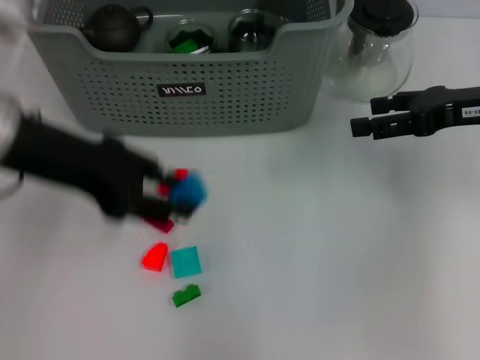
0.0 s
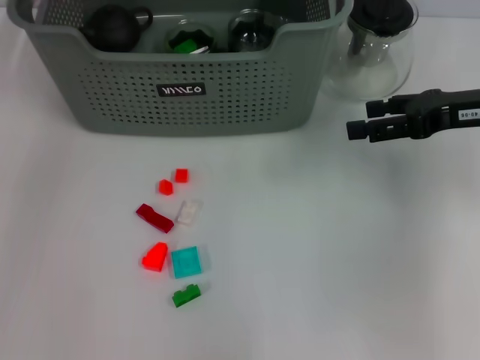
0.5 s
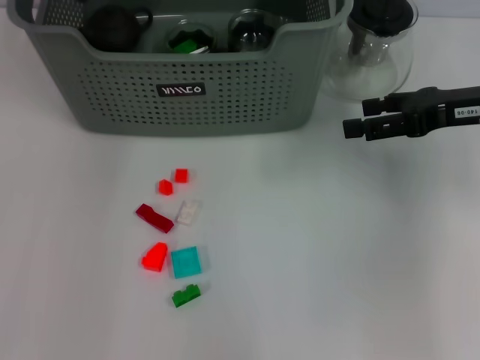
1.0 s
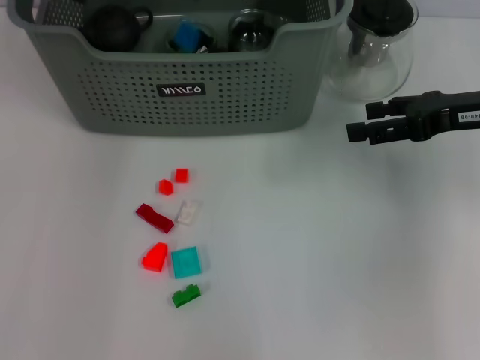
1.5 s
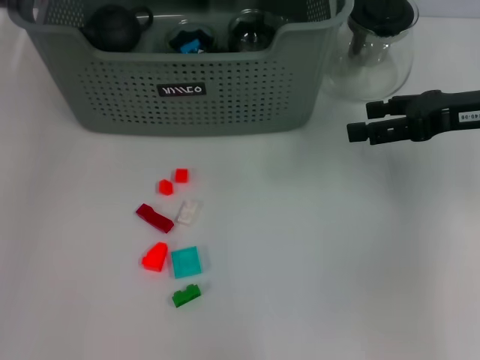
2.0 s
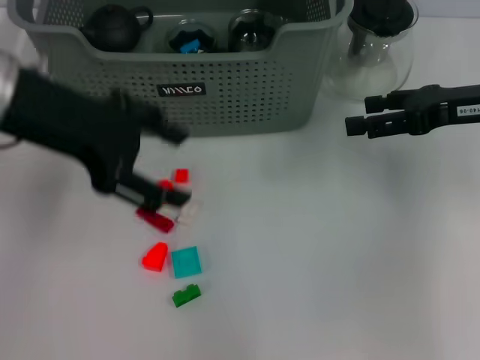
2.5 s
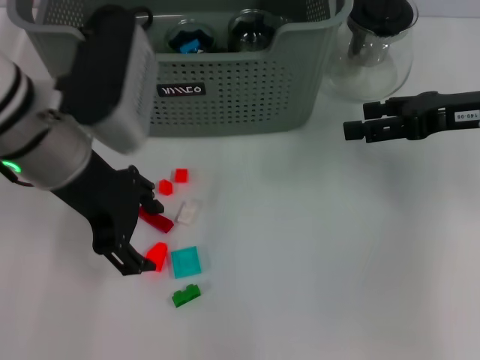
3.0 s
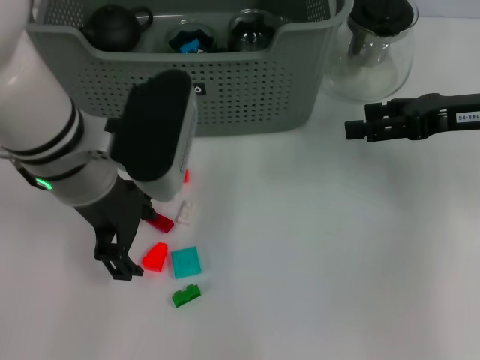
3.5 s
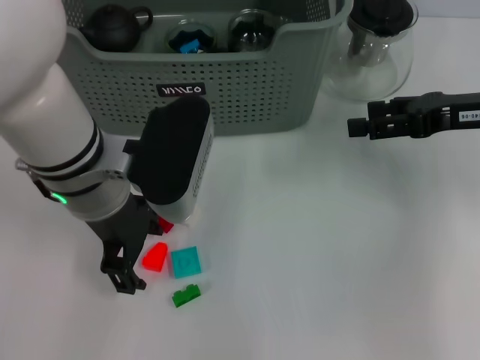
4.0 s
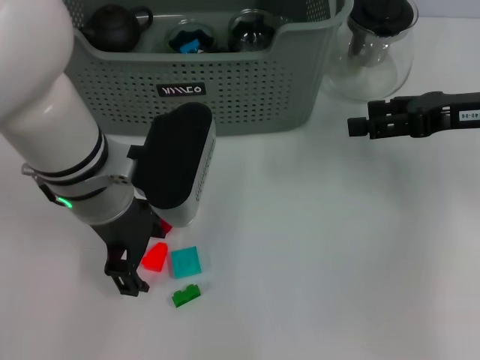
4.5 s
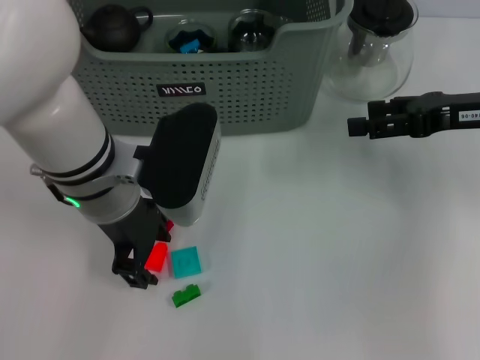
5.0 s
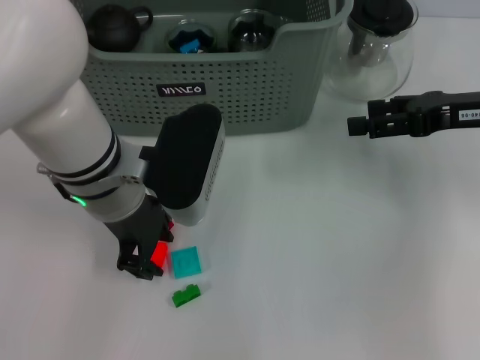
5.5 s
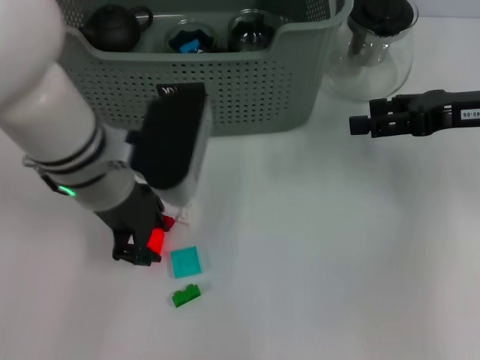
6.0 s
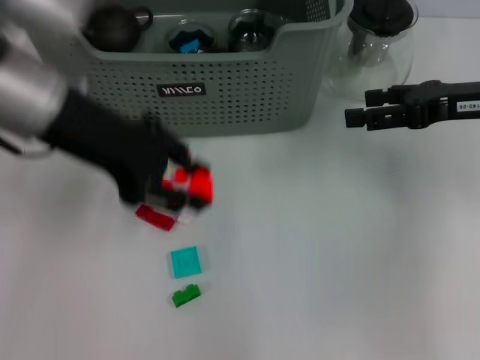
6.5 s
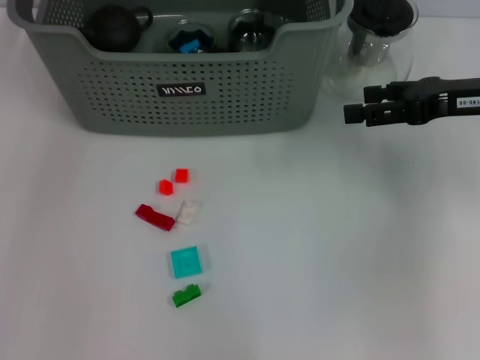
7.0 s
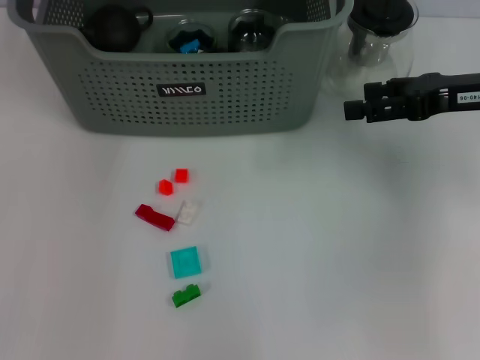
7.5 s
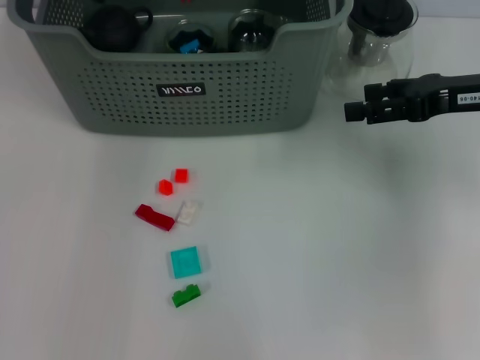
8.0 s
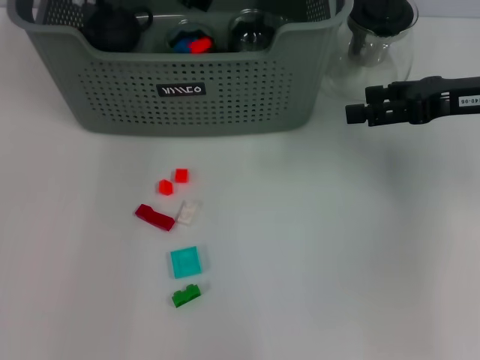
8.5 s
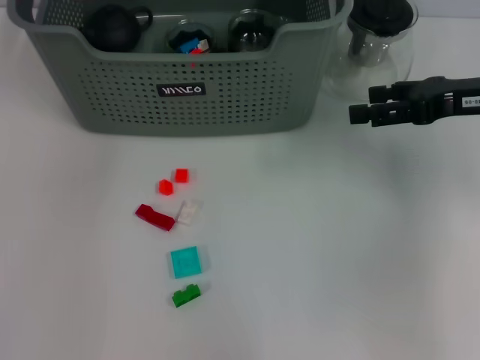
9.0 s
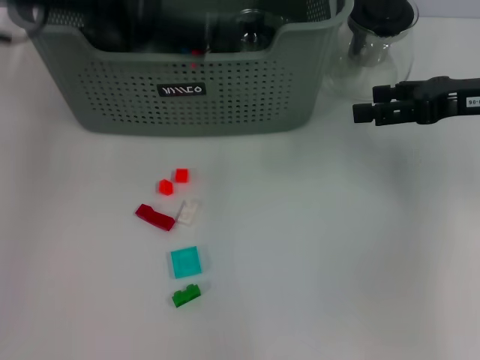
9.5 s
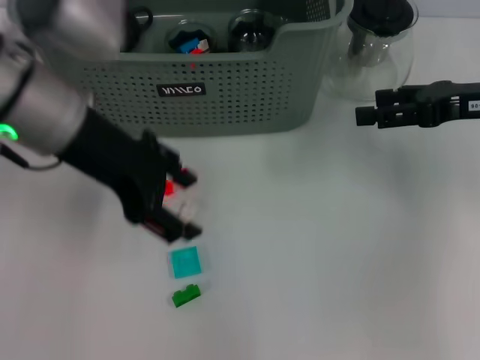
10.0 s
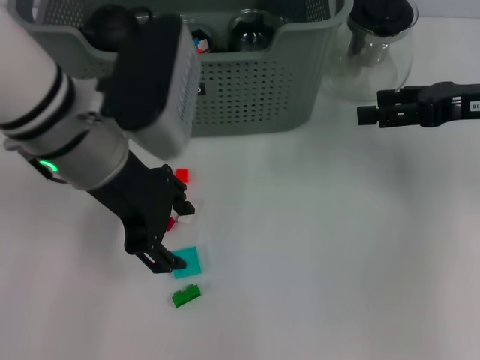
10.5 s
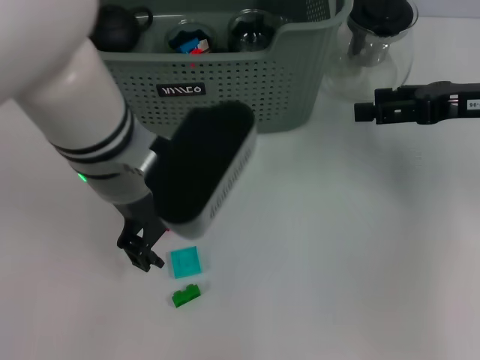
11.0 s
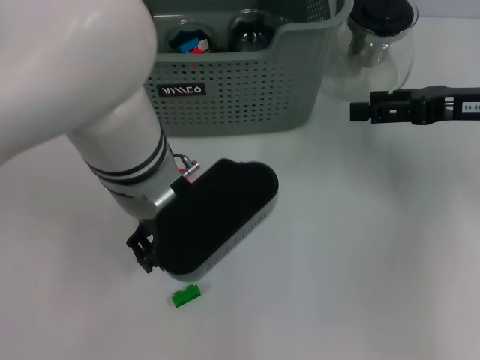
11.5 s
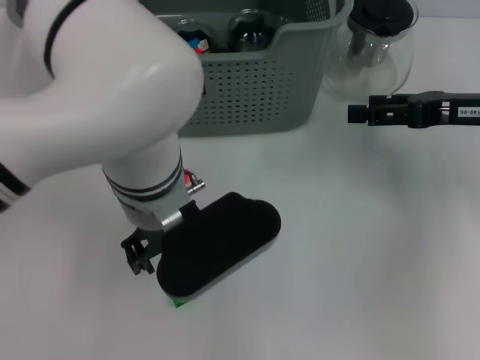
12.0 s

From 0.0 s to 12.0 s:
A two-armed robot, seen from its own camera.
Task of the whole recording: pick up the teacup on the table and place it into the storage bin, pick up the block on the table and place it into the storage bin.
Step, from 0.0 s to 1.5 s: Place the dark blue block in the storage box with left gripper.
Step, from 2.0 s to 5.5 s: Grasp the orange block with left gripper.
Step, from 6.0 s to 8.5 s: Place the orange block in the storage box with left gripper.
From 0.0 s to 2.0 s: The left gripper shifts approximately 10 cm forward, and opens its fingers.
From 2.0 s to 4.0 s: The left gripper moves downward, to the right and backward, roughly 15 cm.
From 4.0 s to 6.0 s: The left gripper closes.
From 6.0 s to 8.0 s: The left gripper goes approximately 15 cm forward.
From 8.0 s to 10.0 s: The left gripper heads backward, covering roughly 15 cm, and opens.
From 10.0 s to 12.0 s: The left gripper shifts roughly 15 cm to the right and downward.

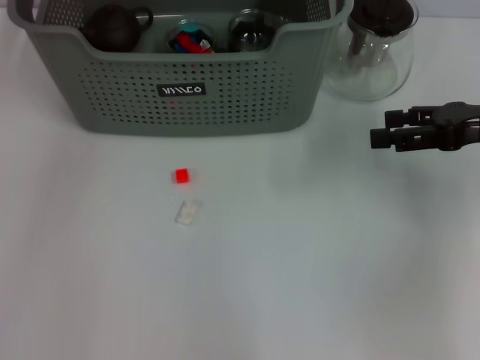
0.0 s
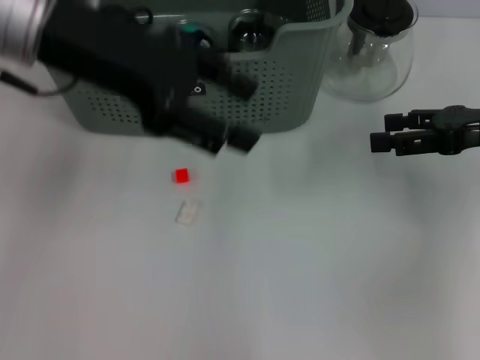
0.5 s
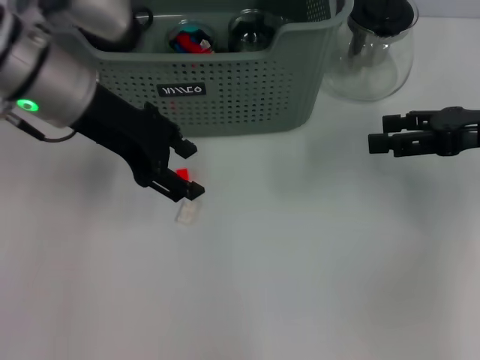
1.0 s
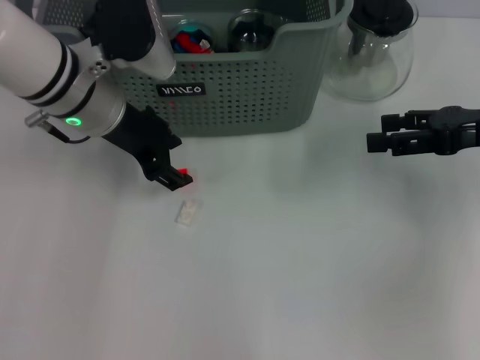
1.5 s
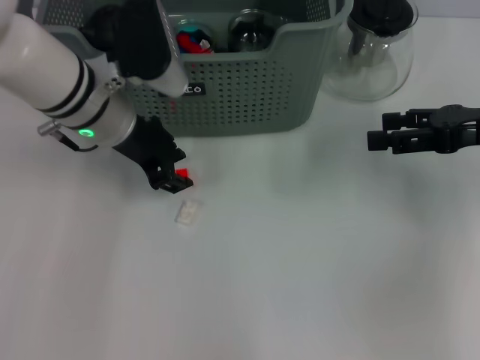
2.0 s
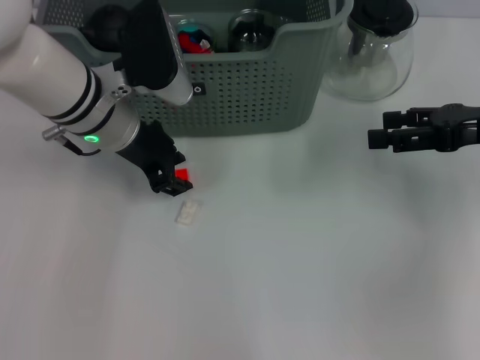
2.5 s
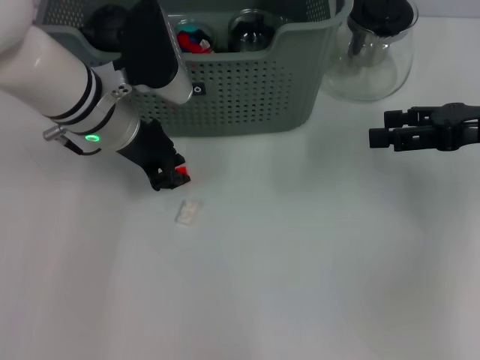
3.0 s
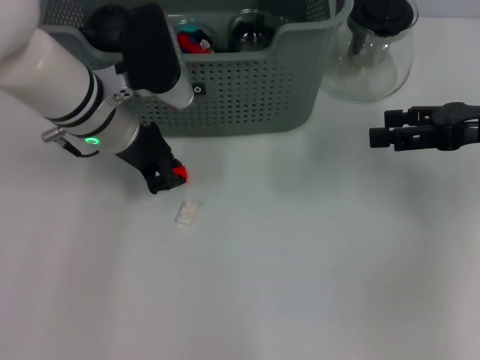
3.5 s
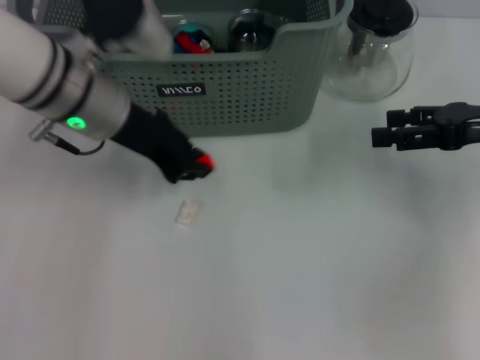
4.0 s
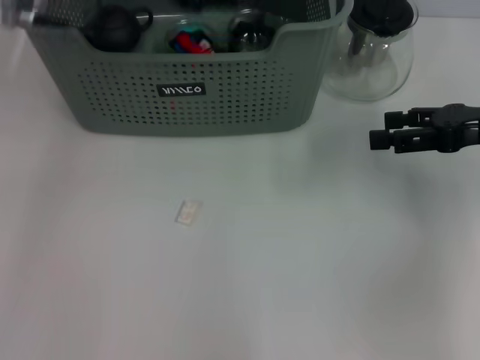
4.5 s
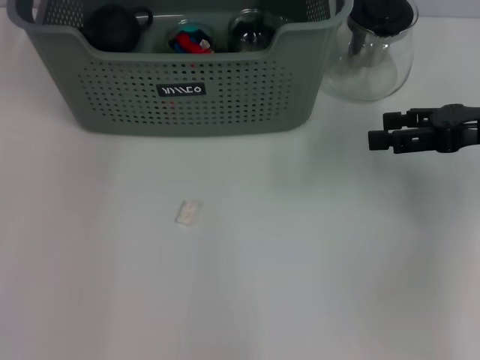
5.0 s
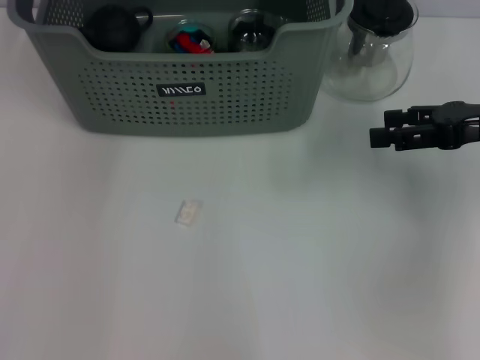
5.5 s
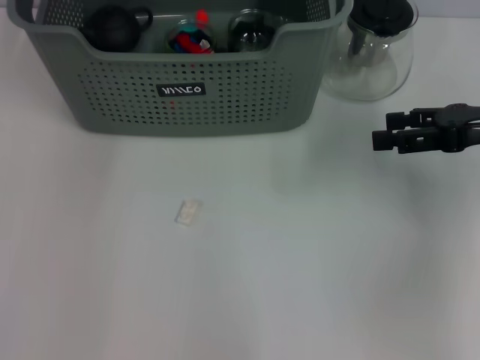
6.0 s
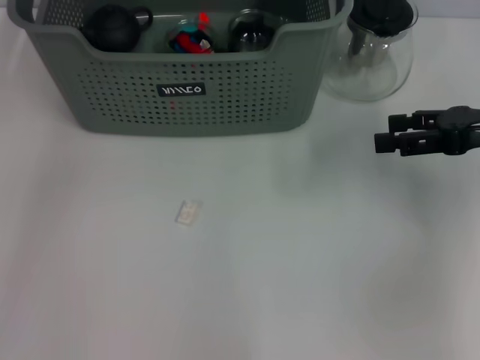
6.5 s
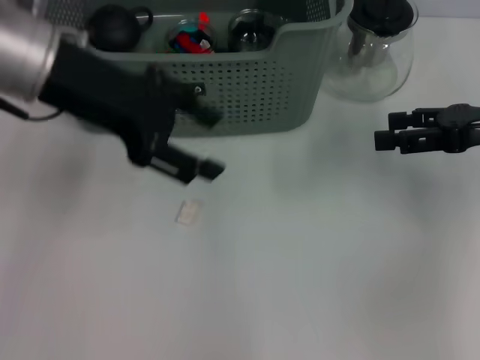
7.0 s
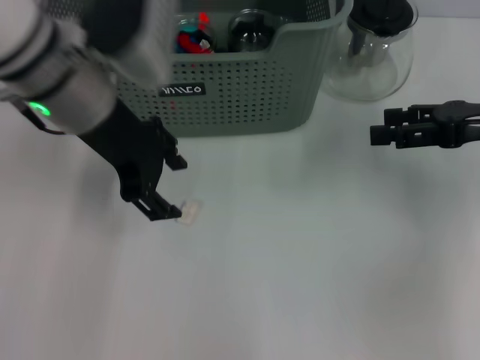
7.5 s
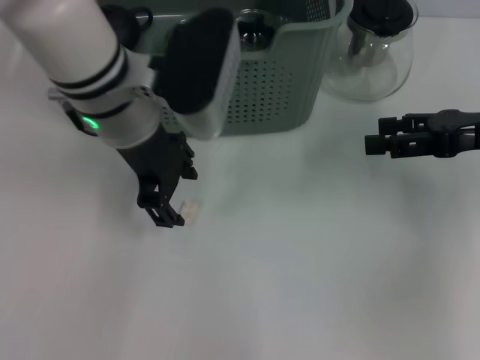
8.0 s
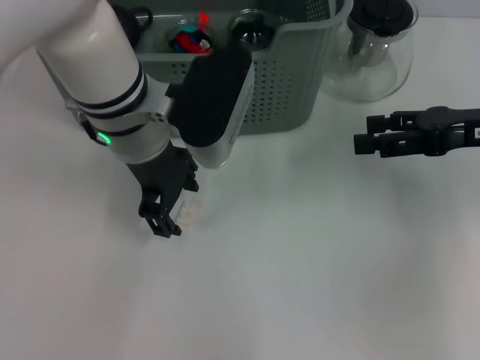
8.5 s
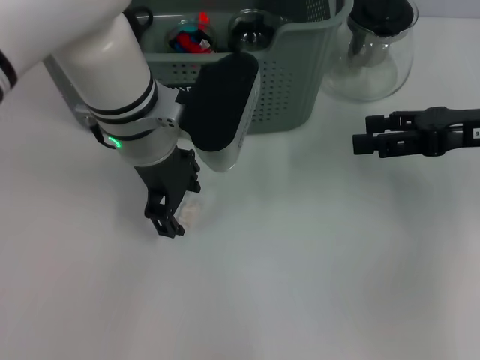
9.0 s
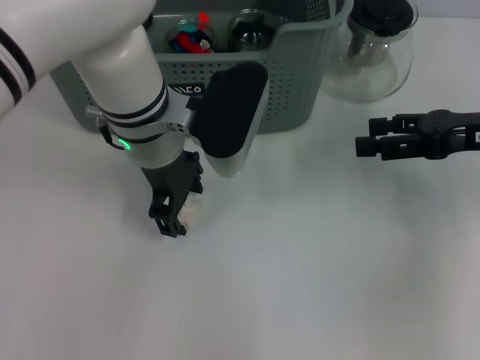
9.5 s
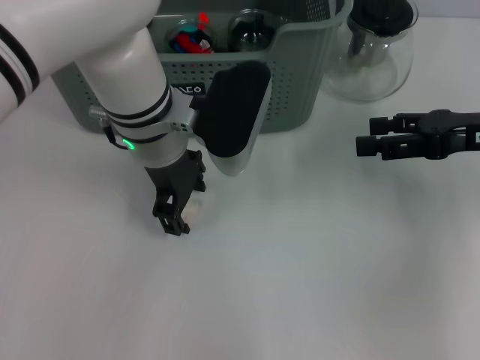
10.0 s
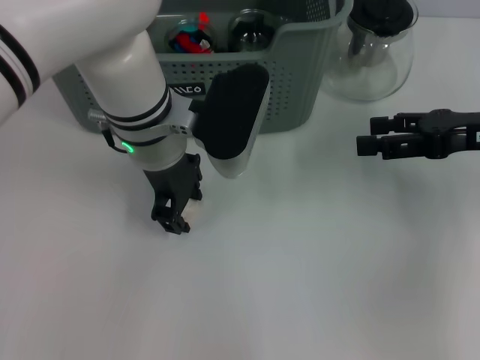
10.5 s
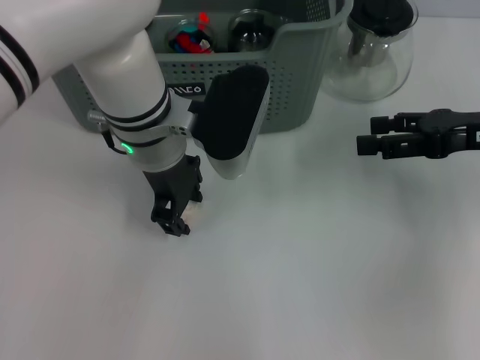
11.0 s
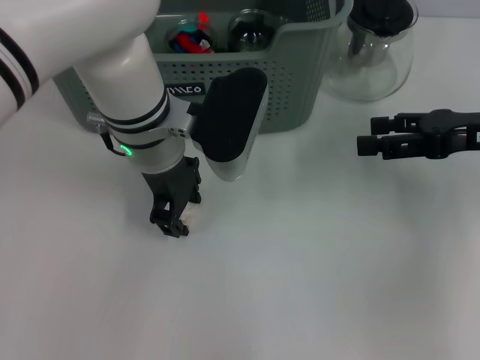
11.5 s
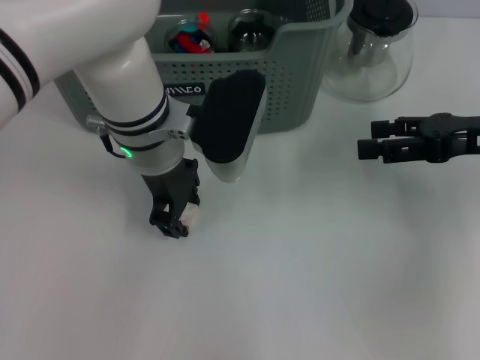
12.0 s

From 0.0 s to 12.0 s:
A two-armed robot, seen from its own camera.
Task of the whole recording: pick up the teacup on the table and place it into the storage bin, pick up the block on the table and place it into the storage bin.
Step, from 0.0 s to 3.5 s: Grasp the orange block with left gripper.
Step, from 4.0 s to 6.0 s: Place the orange block in the storage box with left gripper.
From 0.0 s to 2.0 s: The left gripper shifts some 15 cm downward and backward.
From 2.0 s to 4.0 s: The left gripper closes its fingers.
From 4.0 s to 6.0 s: The left gripper moves forward and upward, about 15 cm, and opens.
From 6.0 s to 8.0 s: The left gripper shifts about 15 cm backward, to the right and downward.
From 8.0 s to 10.0 s: The left gripper ends up about 5 cm from where it was.
From 10.0 s to 12.0 s: Both grippers stay about where they are.

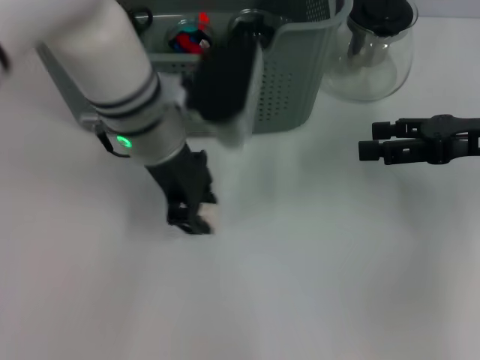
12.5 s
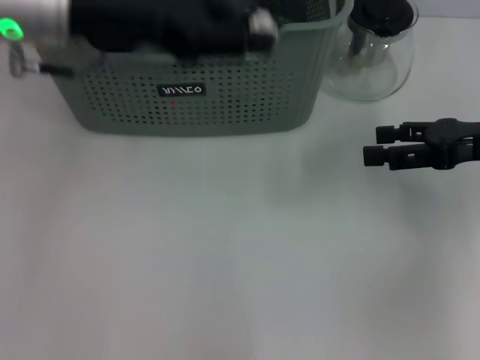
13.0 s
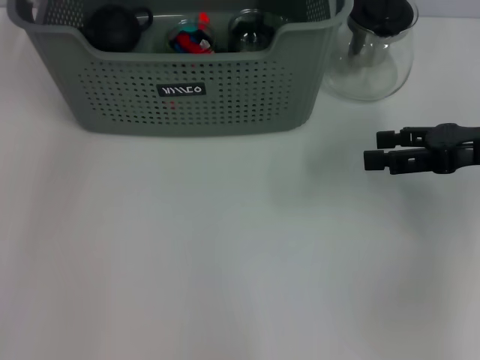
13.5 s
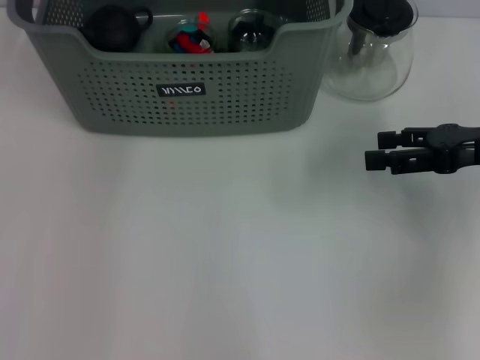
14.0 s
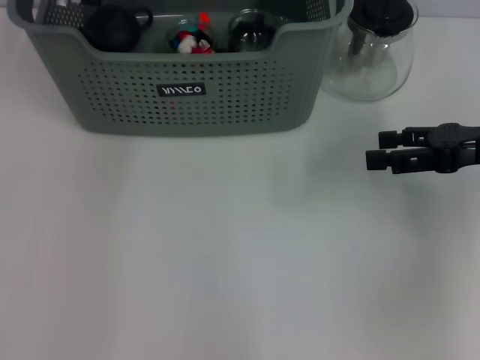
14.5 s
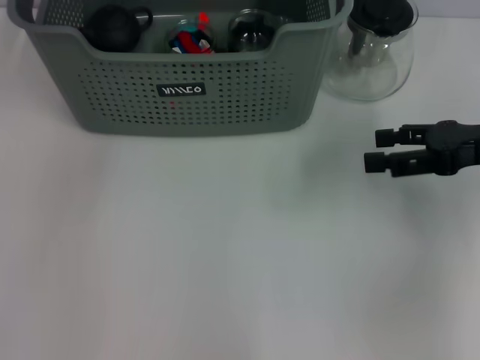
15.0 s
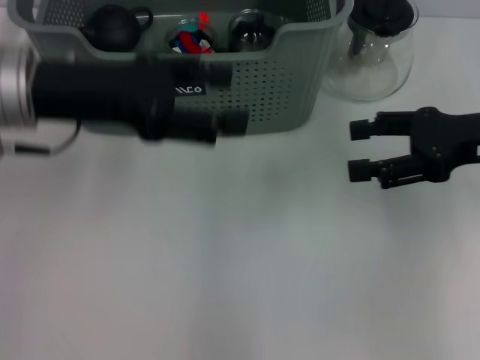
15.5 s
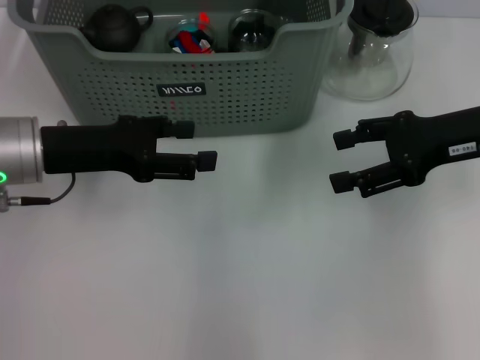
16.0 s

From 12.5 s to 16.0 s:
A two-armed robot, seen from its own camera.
Task of the whole recording: pick up the teacup on the table and place it into the storage bin, pick up the block on the table and place it into the storage bin.
Step, from 12.5 s to 14.5 s: Place the white block in the storage box with left gripper.
From 12.5 s to 14.5 s: The left gripper shifts approximately 15 cm forward, to the left and upward.
From 14.5 s to 16.0 s: The left gripper goes some 20 cm backward, downward and to the left, and opens, while the right gripper shifts by approximately 5 cm.
